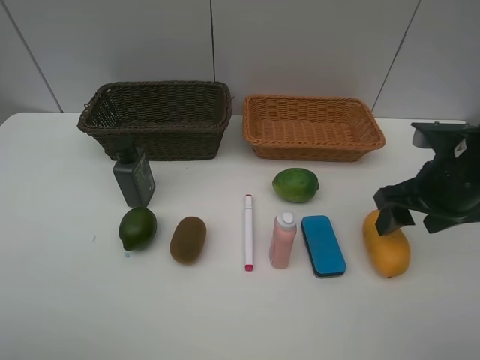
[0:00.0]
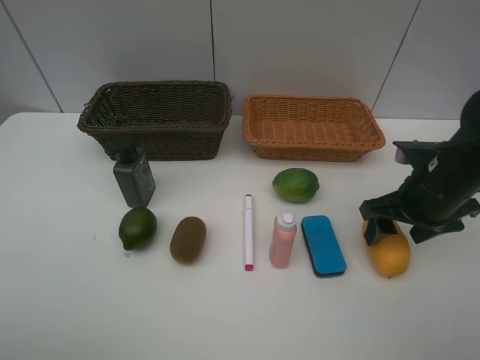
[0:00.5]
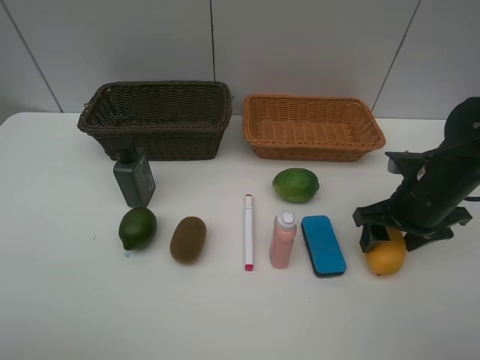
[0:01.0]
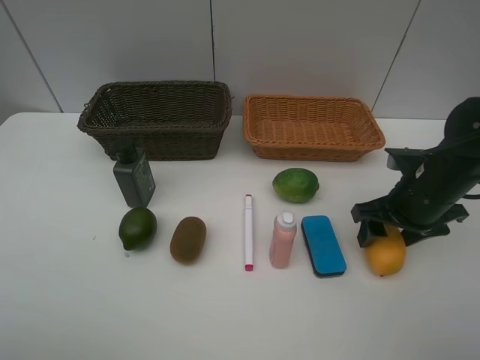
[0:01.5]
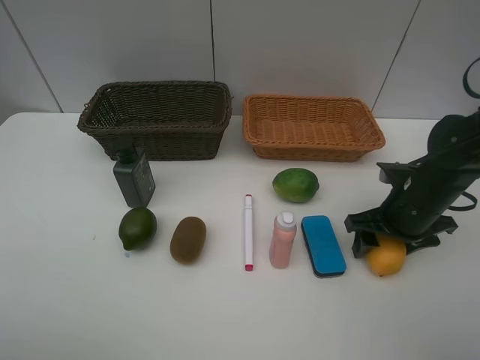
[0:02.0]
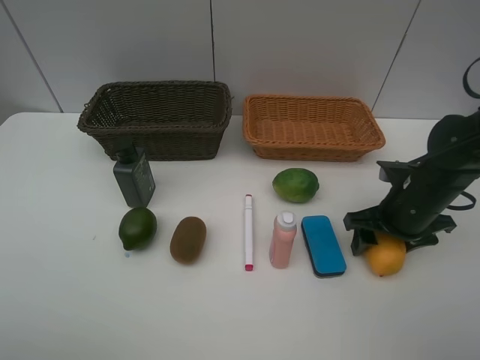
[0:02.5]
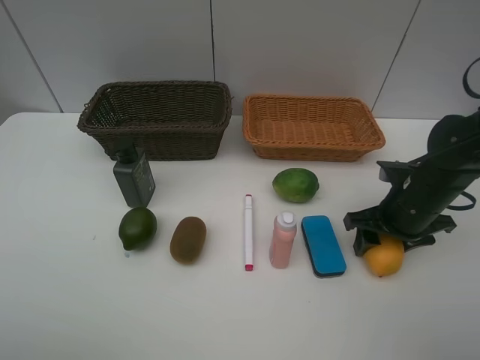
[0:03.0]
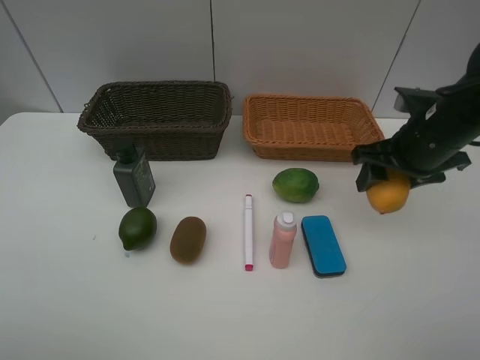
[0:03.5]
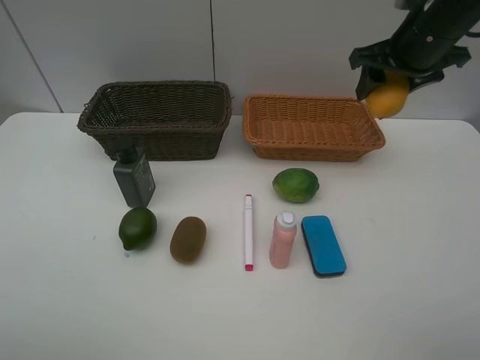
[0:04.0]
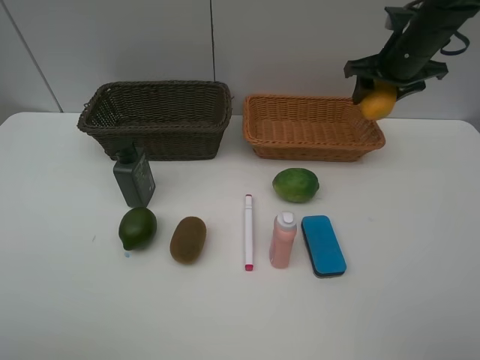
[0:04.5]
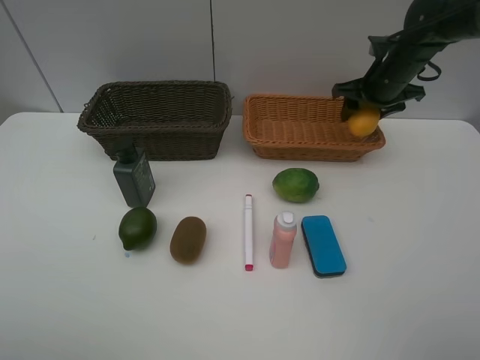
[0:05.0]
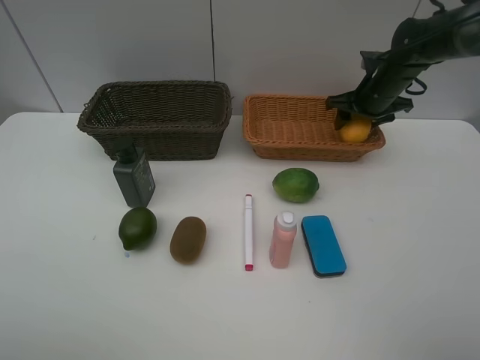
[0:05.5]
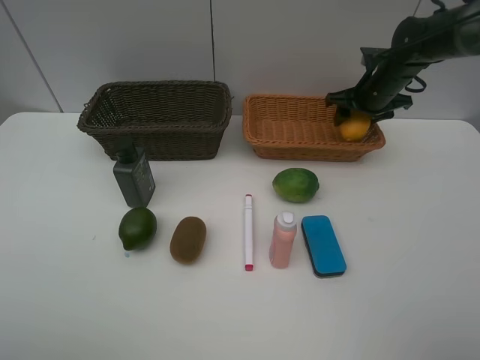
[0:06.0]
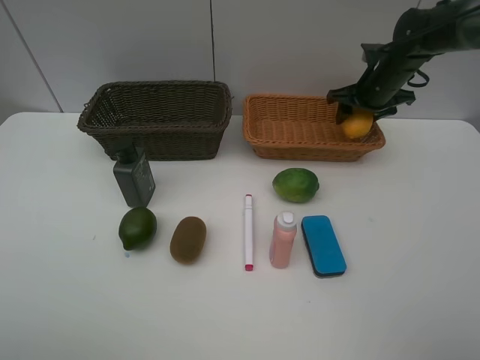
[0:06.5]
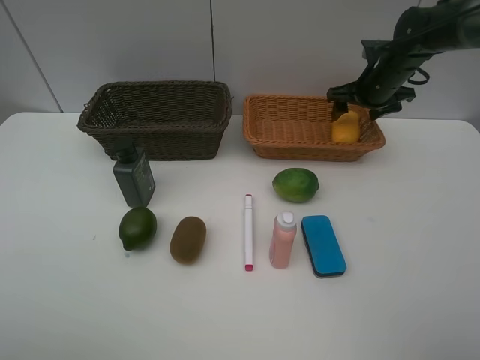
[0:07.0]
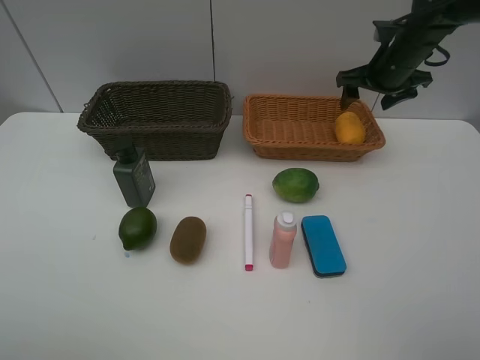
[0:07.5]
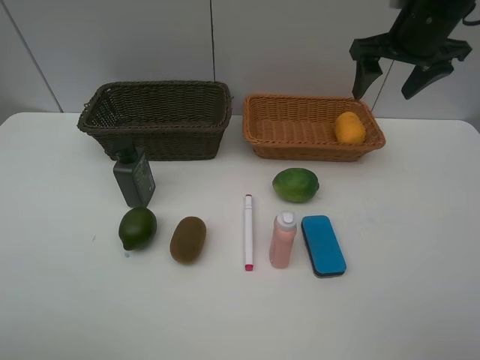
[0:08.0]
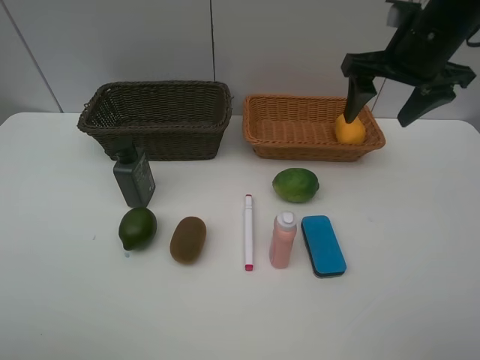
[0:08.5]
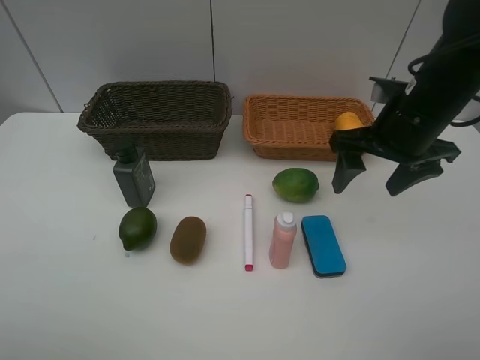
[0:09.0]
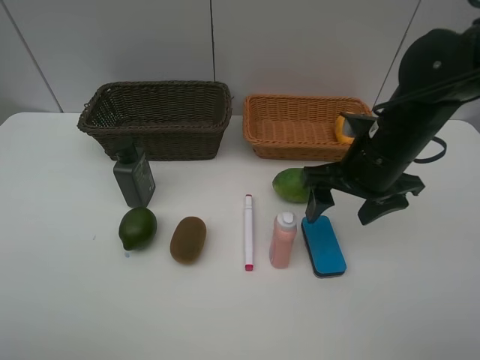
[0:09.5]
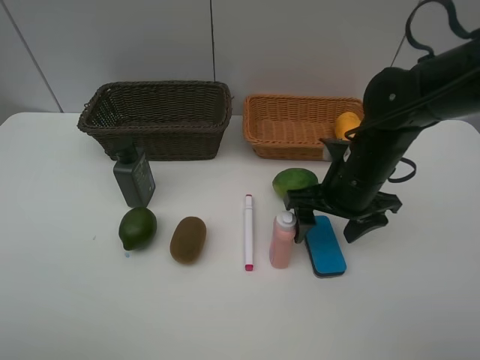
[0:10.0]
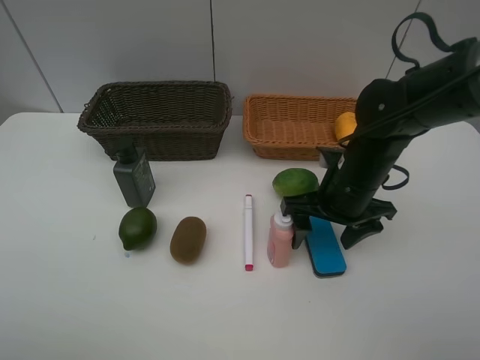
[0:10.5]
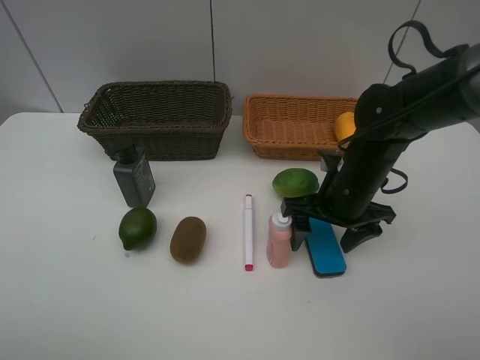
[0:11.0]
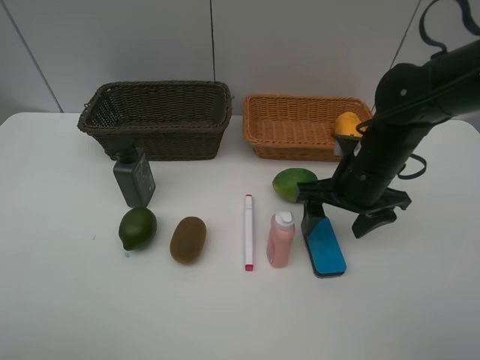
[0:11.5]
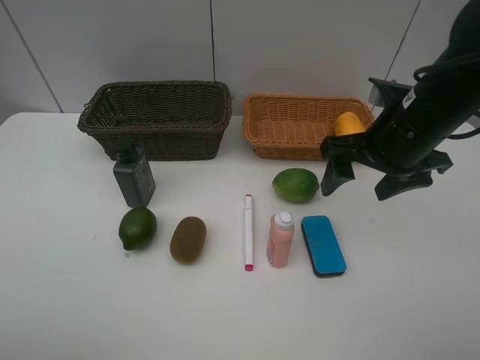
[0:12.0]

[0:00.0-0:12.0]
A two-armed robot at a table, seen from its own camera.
Task of the whole recording: Place multiple objects separately in different baskets.
Step, 0:00.0 to 0:03.0: Pick up the mango with right gripper.
Step, 0:03.5 to 0:07.0: Place the mango in the light basket with right gripper.
0:00.0 to 0:02.0: The right gripper shifts approximately 10 cm downward.
0:02.0 to 0:04.0: The right gripper goes roughly 20 cm upward and forward.
0:04.0 to 0:06.0: The right gripper shifts about 15 cm downward and forward.
0:06.0 to 0:08.0: The right gripper shifts about 15 cm upward and backward, and opens its fingers.
0:08.0 to 0:10.0: The right gripper goes about 20 cm downward, backward and to the left.
0:10.0 to 0:12.0: The right gripper travels upward by about 10 cm.

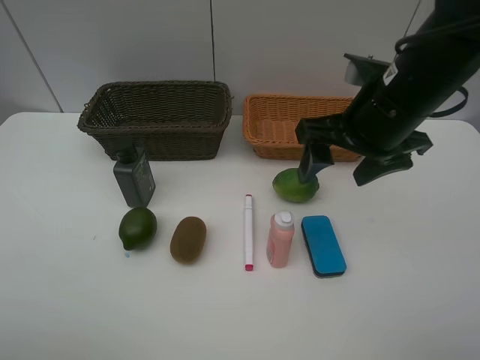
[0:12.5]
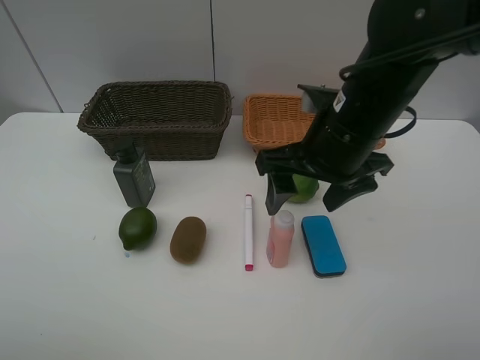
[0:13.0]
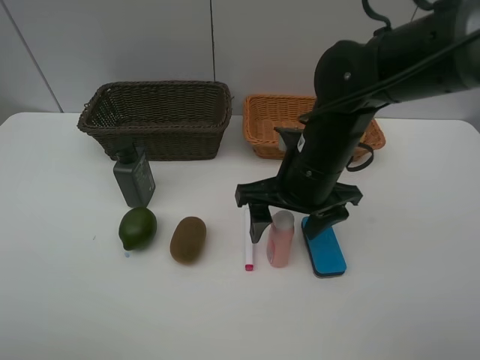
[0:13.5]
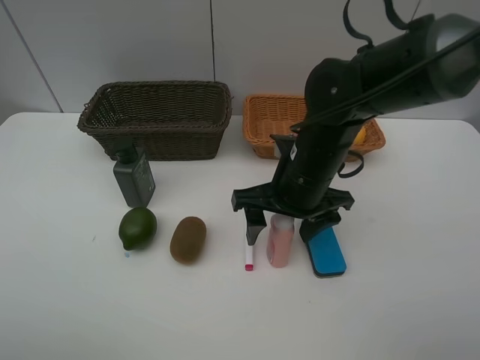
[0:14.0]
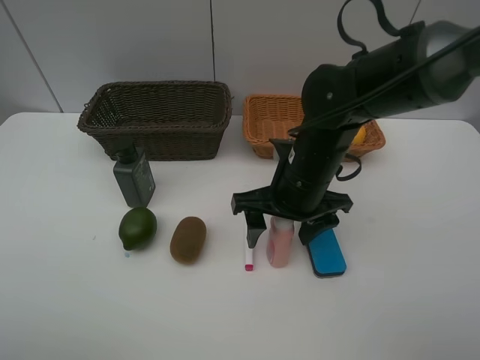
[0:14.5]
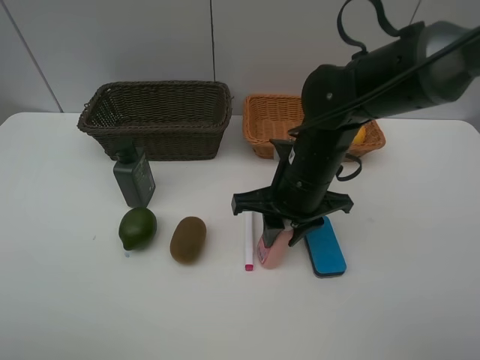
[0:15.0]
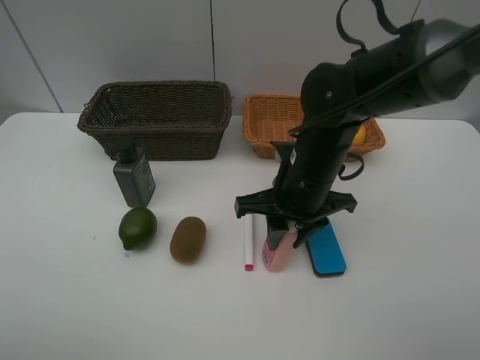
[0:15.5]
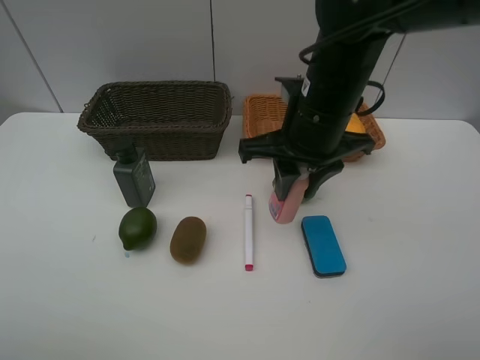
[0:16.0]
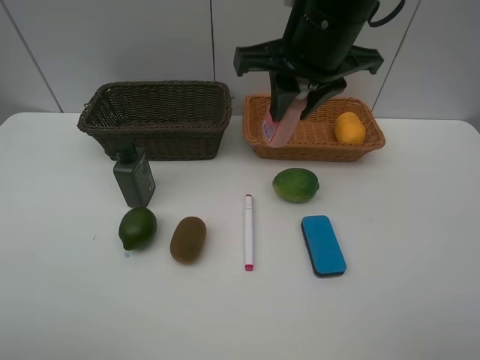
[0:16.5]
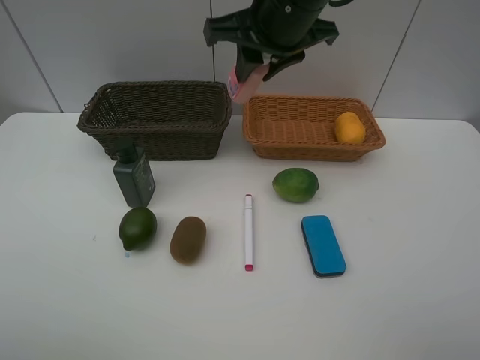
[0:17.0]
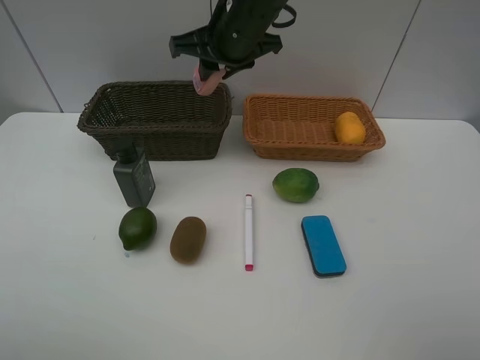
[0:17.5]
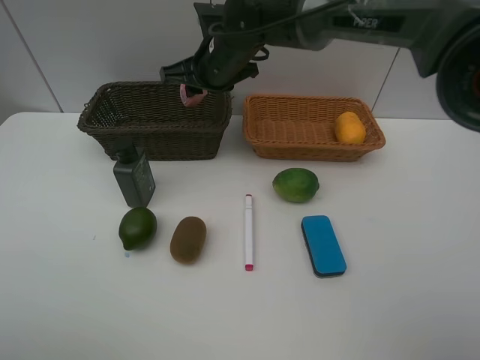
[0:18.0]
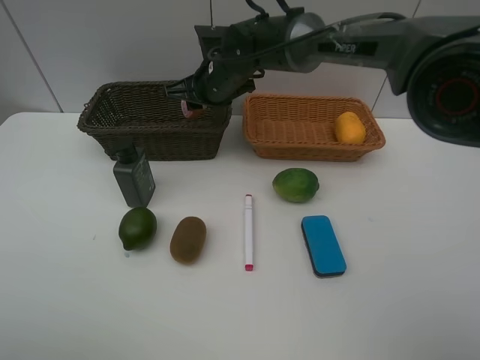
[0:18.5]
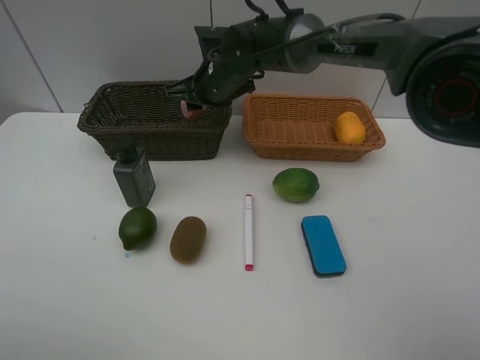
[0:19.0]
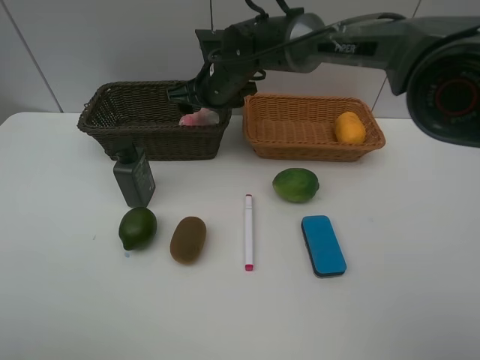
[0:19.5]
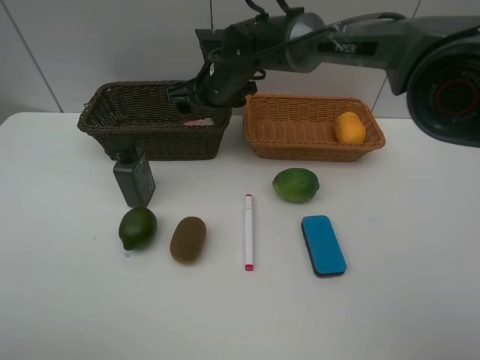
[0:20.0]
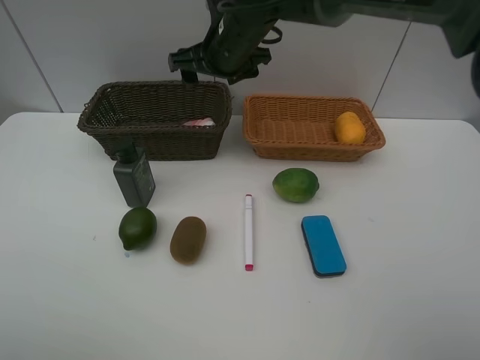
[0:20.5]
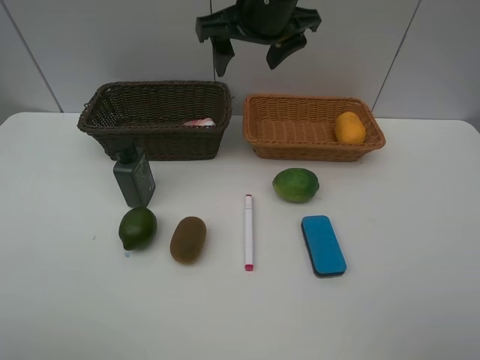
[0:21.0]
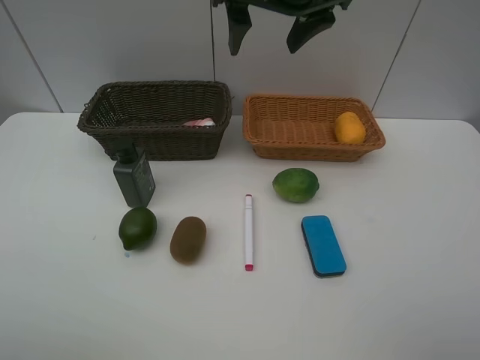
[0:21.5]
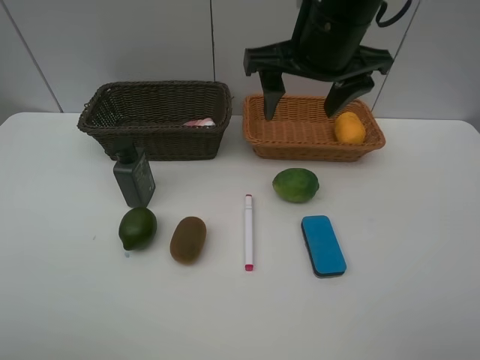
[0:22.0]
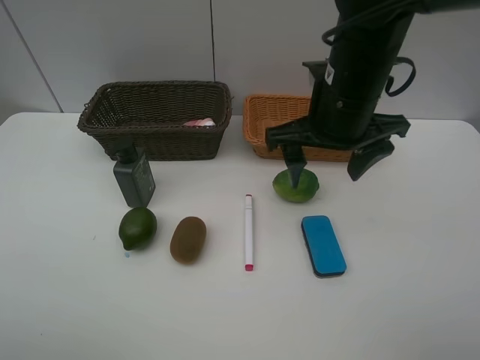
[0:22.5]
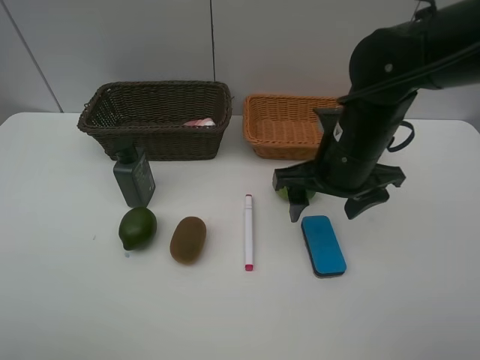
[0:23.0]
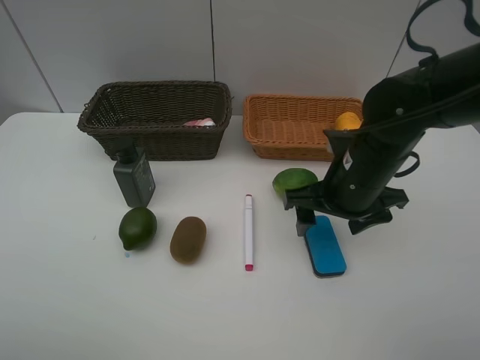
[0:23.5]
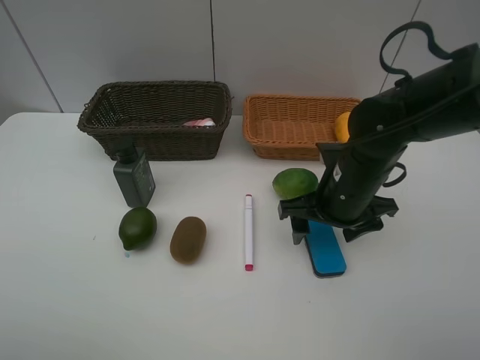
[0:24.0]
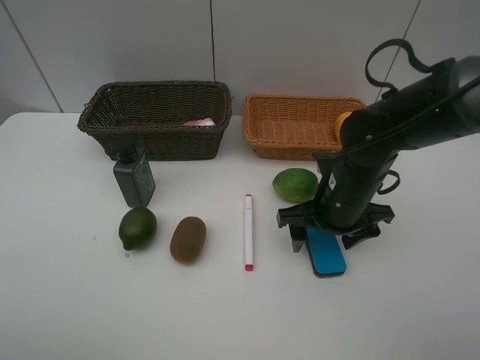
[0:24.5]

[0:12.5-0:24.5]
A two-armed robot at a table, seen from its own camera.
Task of the whole recording: Place multiple objects separately in different baskets.
Step, 0:12.5 to 0:15.5: Pick up the laundry detergent with right gripper.
Step, 0:16.0 to 0:20.0: Place the laundry detergent in the dark basket with right gripper.
0:12.5 to 0:14.5: The right gripper is displaced downward and to the left by about 10 cm.
0:14.5 to 0:16.5: The right gripper heads upward, covering roughly 15 cm, and closes its fingers.
0:16.5 to 0:18.5: The right gripper heads forward, downward and to the left, covering about 20 cm.
0:18.5 to 0:20.5: The right gripper goes about 5 cm upward, and opens its fingers.
0:20.5 to 0:22.5: The right gripper moves backward and to the right, approximately 20 cm.
0:22.5 to 0:24.5: The right gripper moves downward, roughly 15 cm.

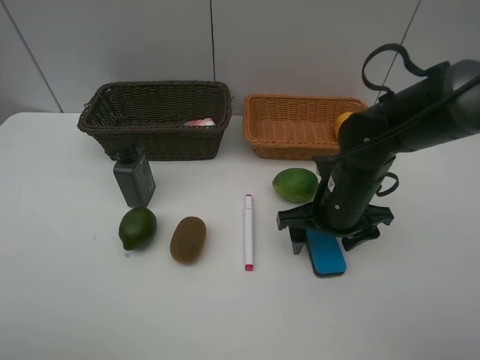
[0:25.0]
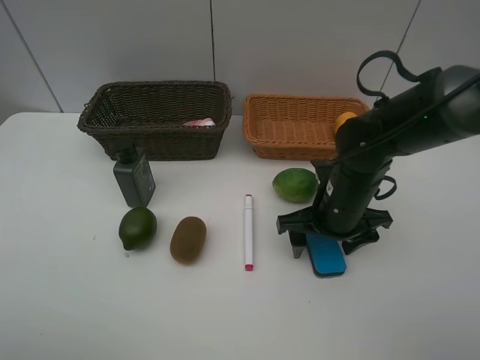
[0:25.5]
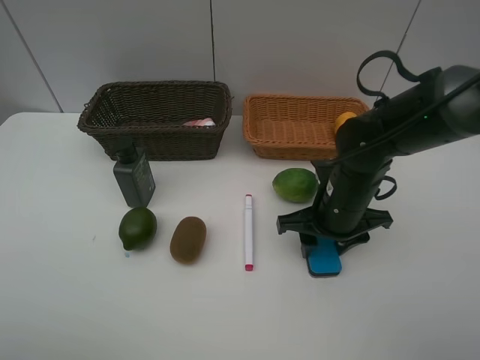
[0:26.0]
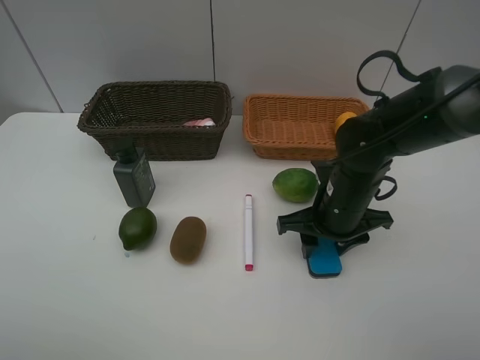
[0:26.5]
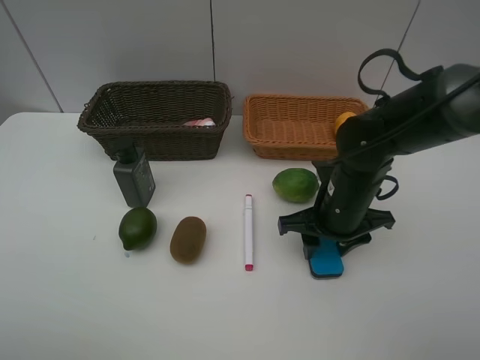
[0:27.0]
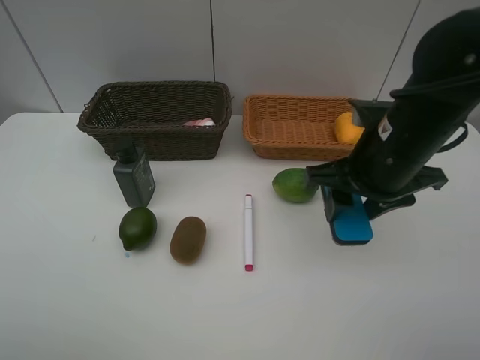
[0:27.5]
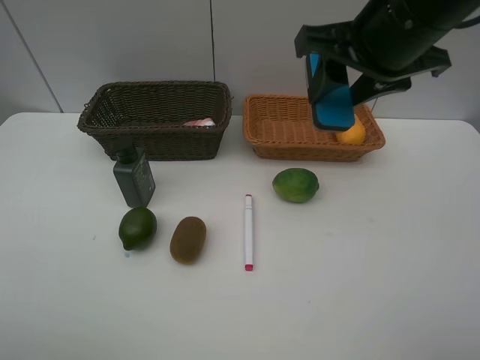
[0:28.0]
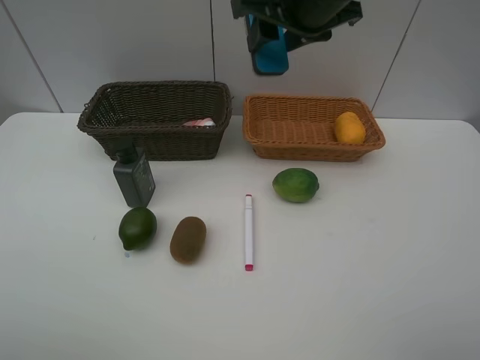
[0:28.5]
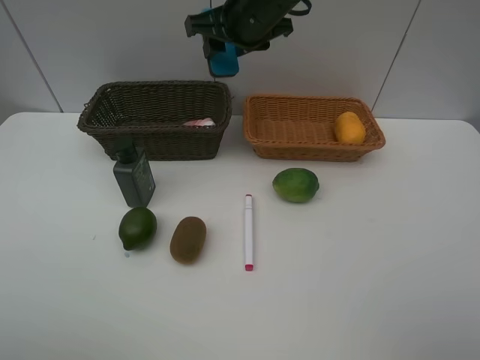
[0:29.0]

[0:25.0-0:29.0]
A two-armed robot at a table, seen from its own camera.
Task of the whole recording: Place multiple objects separately in different baskets.
Step, 0:25.0 to 0:27.0: Pick up blackboard eraser with right gripper.
0:25.0 to 0:27.0: The right gripper closes up.
0:27.0 to 0:29.0: The right gripper is displaced forward, upward and to the left by about 25 cm.
